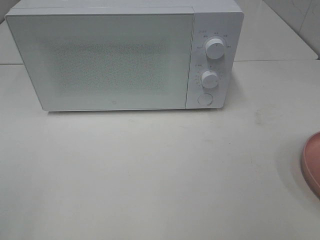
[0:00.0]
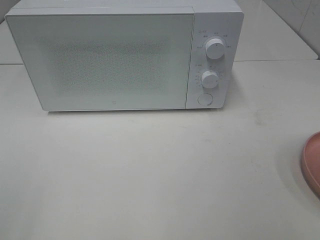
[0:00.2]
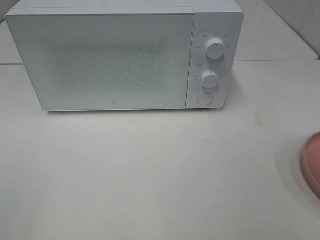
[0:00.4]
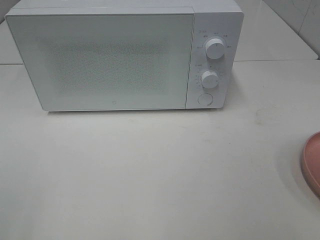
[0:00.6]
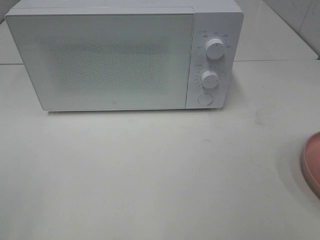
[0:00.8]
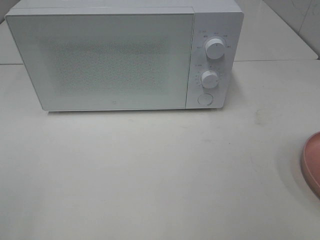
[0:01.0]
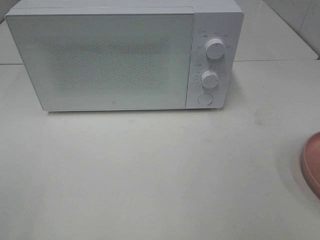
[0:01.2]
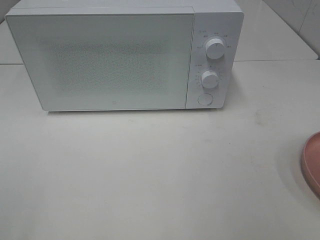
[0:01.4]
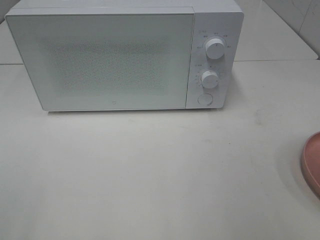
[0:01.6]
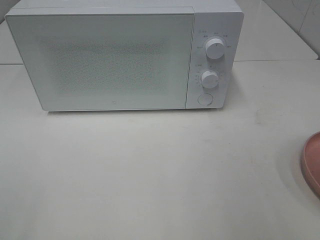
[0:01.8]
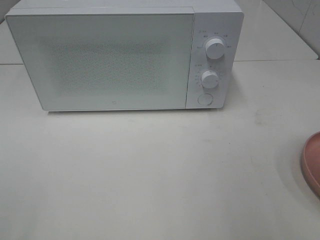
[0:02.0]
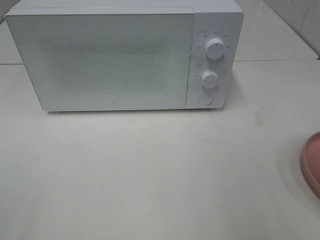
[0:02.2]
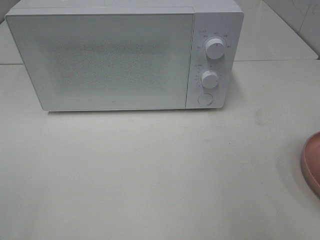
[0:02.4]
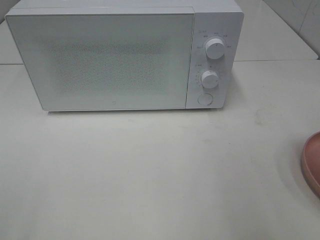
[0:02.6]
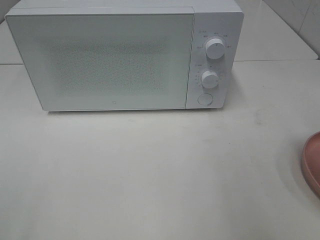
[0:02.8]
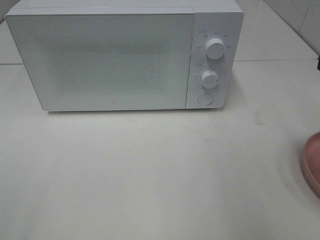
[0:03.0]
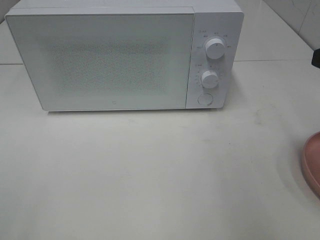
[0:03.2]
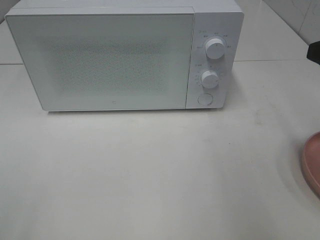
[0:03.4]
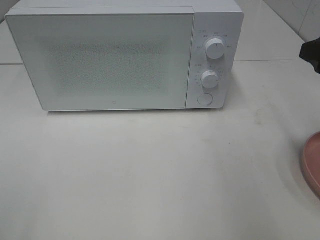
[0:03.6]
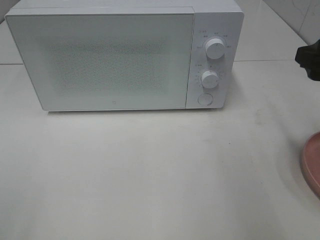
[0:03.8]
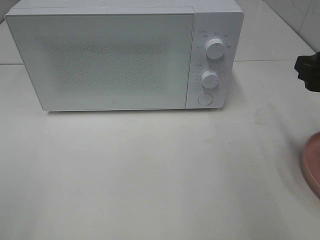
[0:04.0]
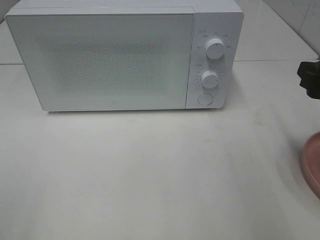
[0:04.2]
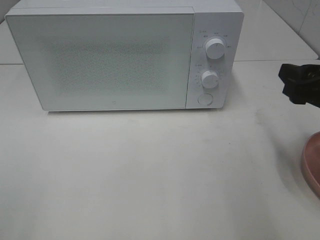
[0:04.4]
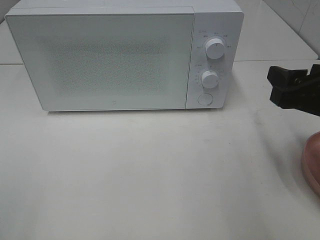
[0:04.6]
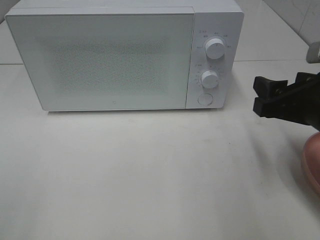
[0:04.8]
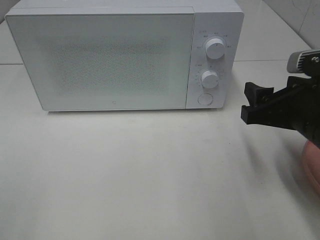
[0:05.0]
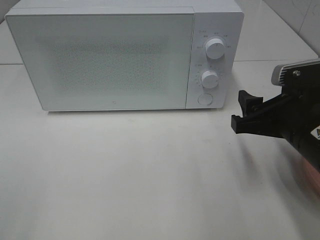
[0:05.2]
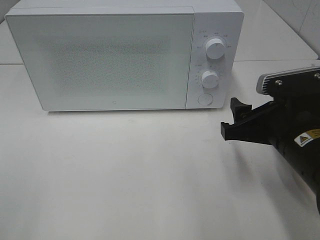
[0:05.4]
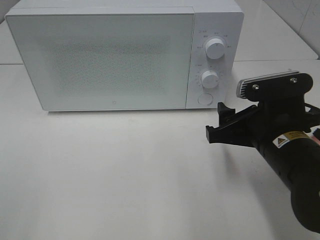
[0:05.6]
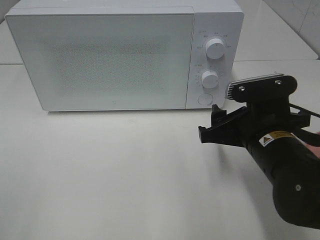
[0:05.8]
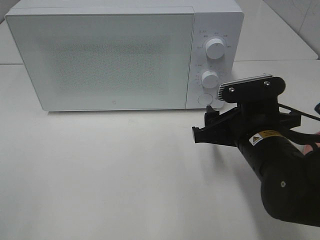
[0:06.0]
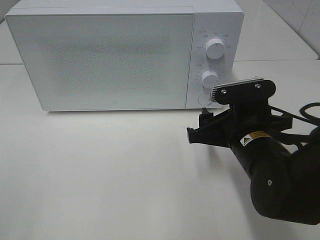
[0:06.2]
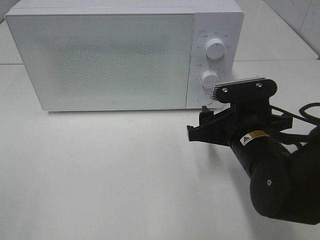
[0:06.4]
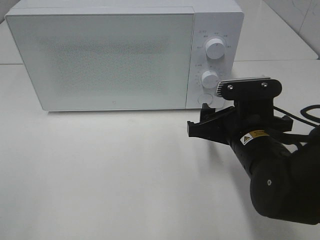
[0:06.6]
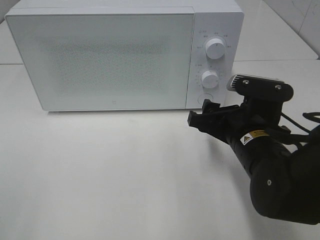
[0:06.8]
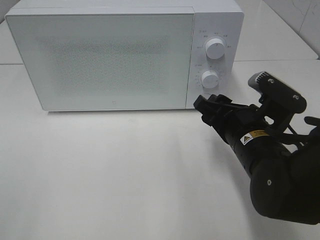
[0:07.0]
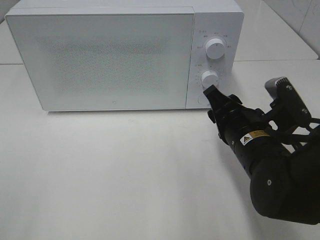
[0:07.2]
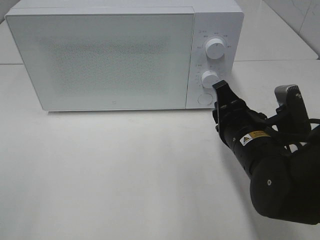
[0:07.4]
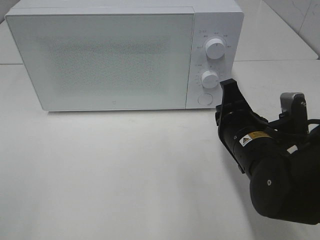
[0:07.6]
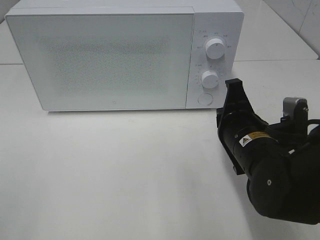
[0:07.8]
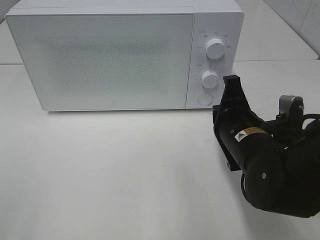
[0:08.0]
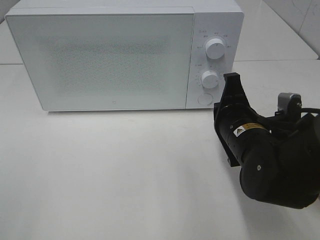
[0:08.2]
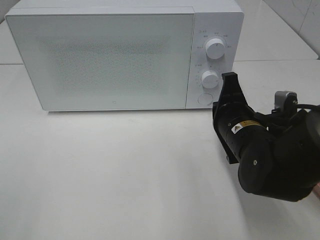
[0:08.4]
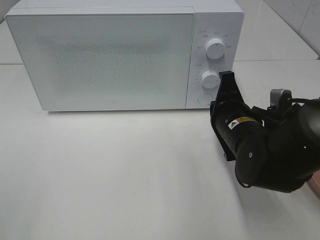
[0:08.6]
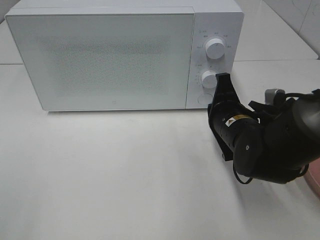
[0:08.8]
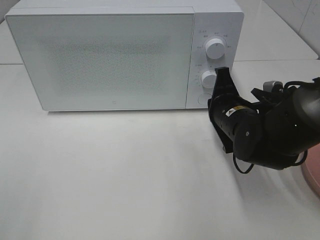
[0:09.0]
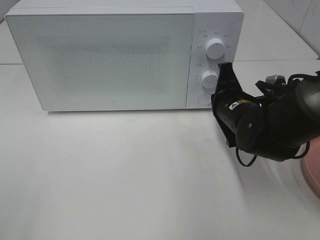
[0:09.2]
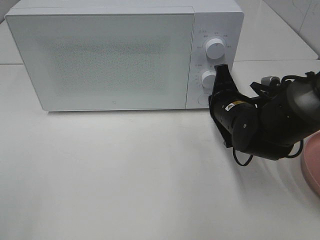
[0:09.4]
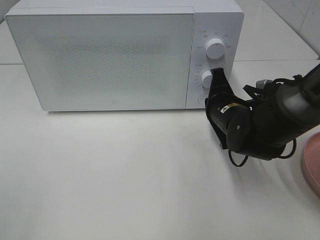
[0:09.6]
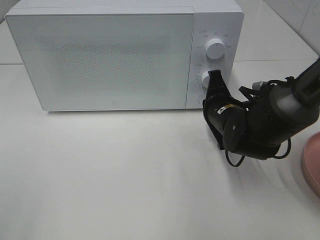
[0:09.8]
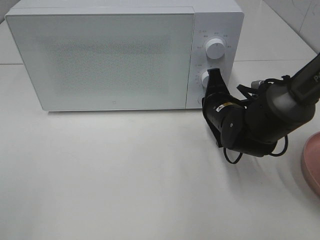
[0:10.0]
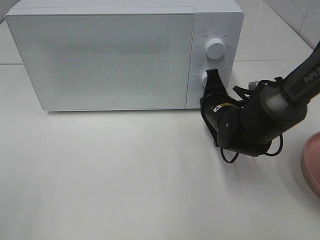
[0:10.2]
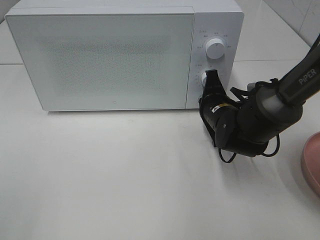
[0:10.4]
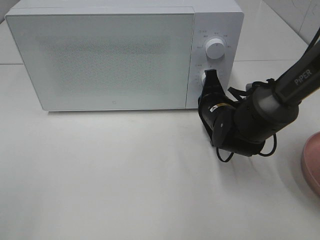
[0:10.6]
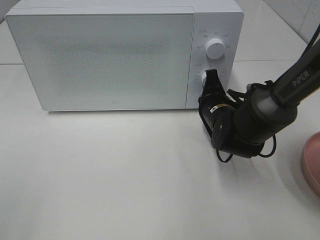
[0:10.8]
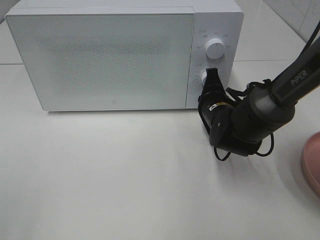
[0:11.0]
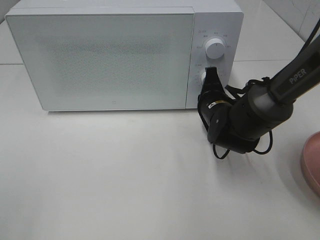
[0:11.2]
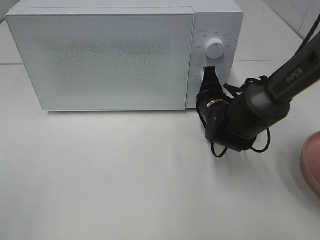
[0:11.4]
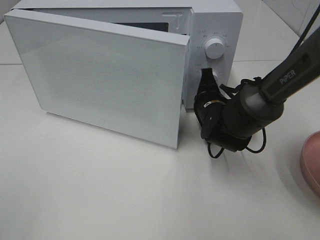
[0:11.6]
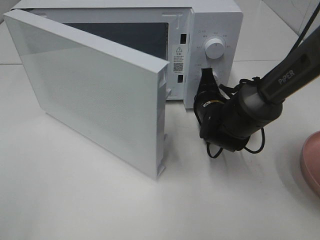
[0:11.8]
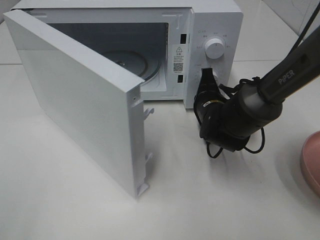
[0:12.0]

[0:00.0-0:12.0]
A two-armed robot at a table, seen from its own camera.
Task of the whole recording: Heat the burger.
0:03.0 to 0:04.4: The right gripper moves downward, roughly 5 cm.
0:04.4 to 0:06.0: The right gripper is displaced to the left and downward by about 15 cm.
0:06.0 to 0:07.6: The right gripper closes up.
0:07.6 to 0:09.0: The right gripper moves forward, roughly 5 cm.
0:09.0 to 0:10.4: The right gripper changes place by some 5 cm.

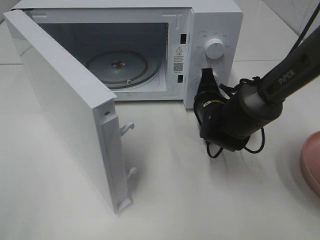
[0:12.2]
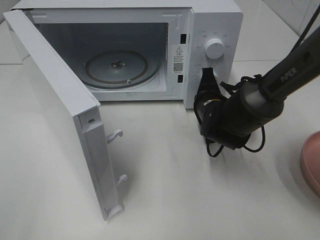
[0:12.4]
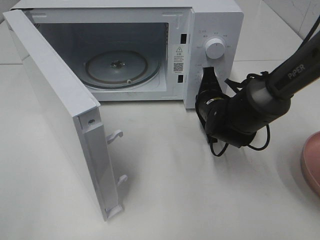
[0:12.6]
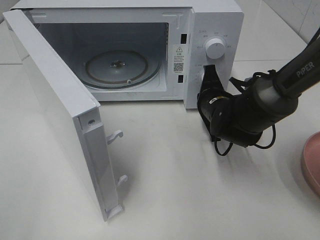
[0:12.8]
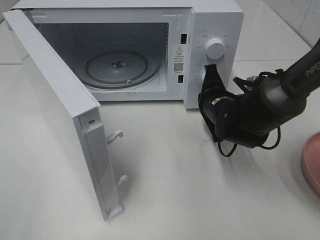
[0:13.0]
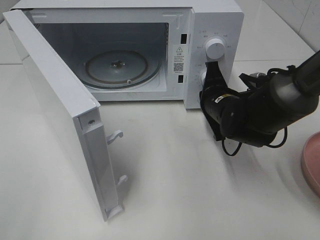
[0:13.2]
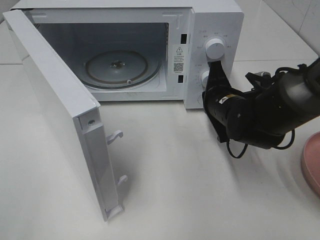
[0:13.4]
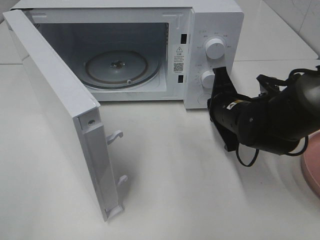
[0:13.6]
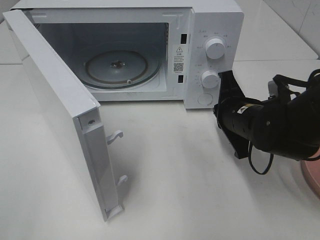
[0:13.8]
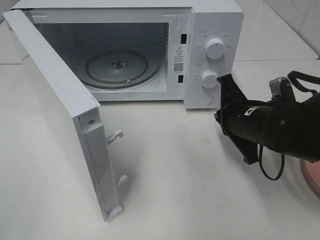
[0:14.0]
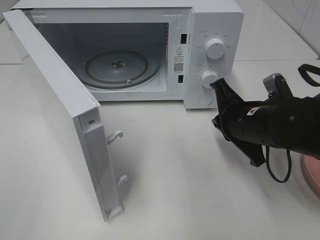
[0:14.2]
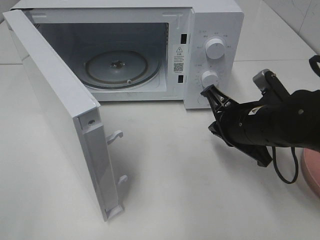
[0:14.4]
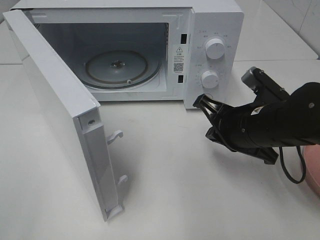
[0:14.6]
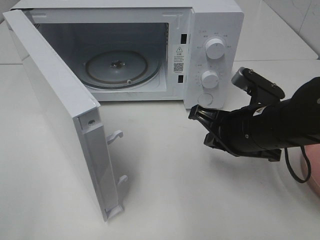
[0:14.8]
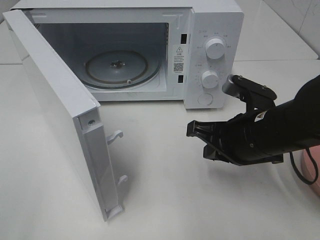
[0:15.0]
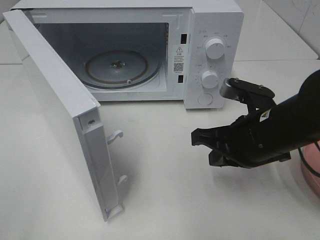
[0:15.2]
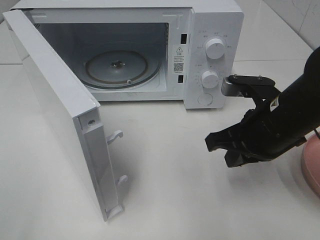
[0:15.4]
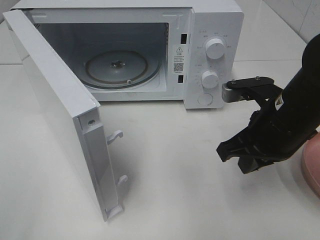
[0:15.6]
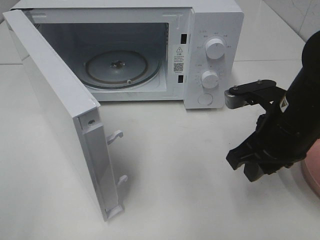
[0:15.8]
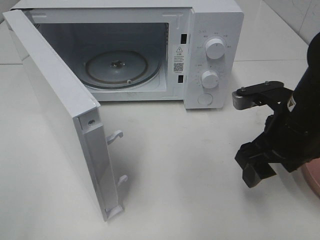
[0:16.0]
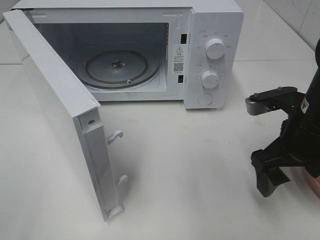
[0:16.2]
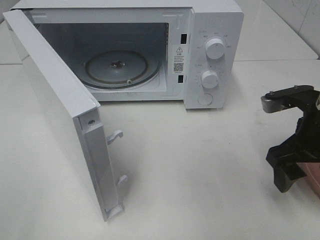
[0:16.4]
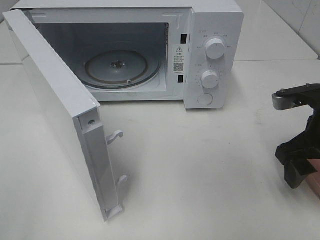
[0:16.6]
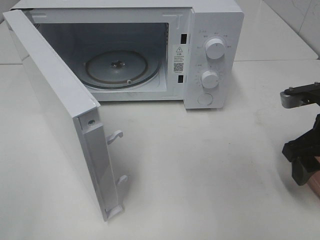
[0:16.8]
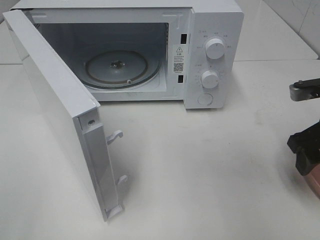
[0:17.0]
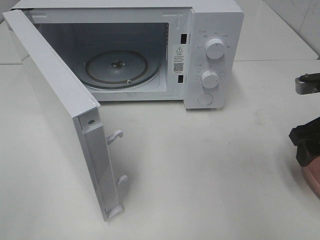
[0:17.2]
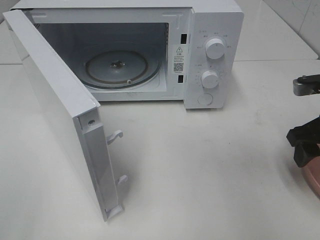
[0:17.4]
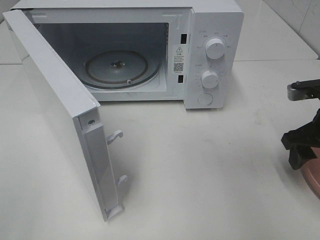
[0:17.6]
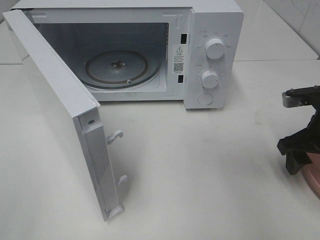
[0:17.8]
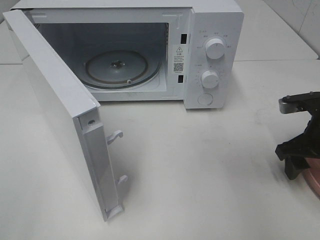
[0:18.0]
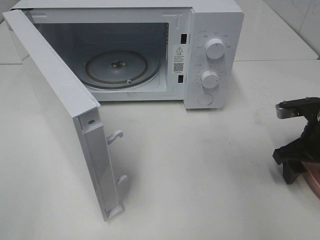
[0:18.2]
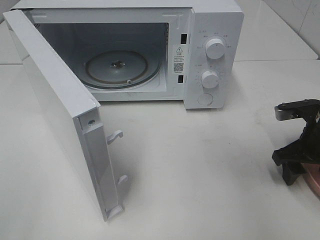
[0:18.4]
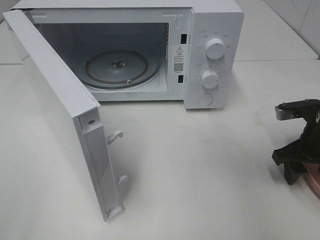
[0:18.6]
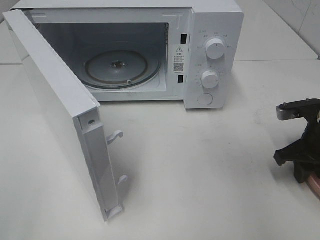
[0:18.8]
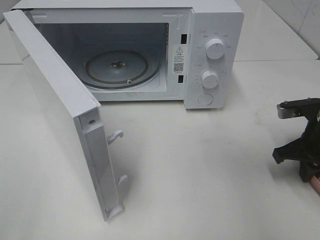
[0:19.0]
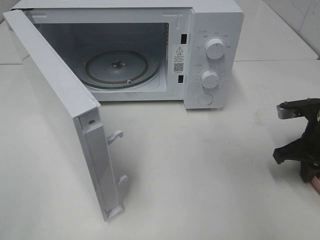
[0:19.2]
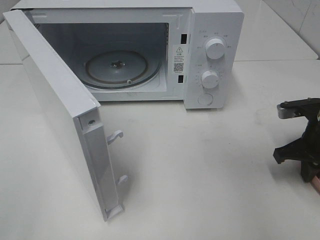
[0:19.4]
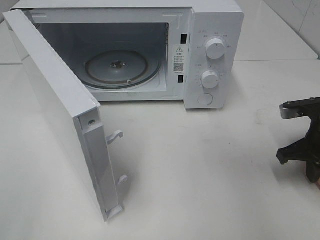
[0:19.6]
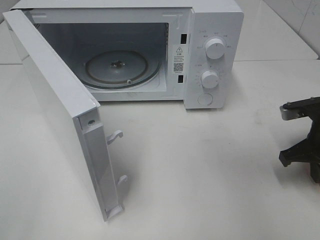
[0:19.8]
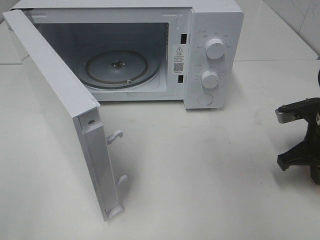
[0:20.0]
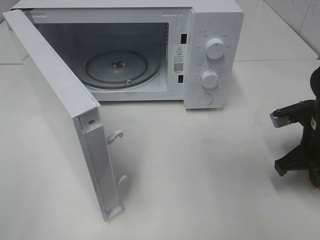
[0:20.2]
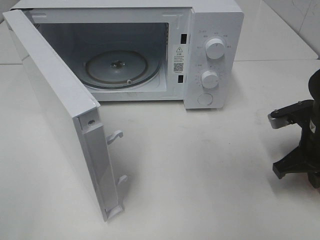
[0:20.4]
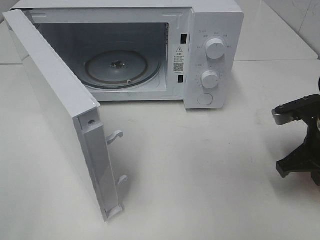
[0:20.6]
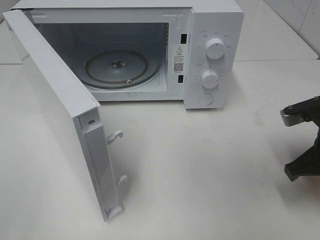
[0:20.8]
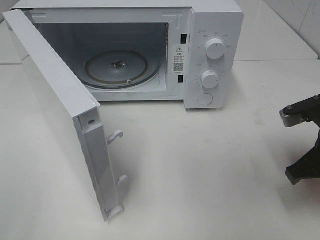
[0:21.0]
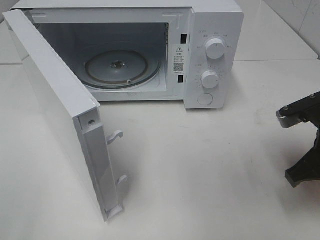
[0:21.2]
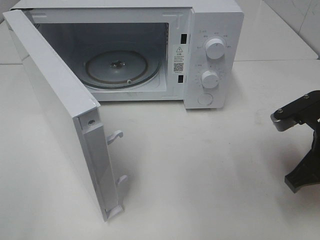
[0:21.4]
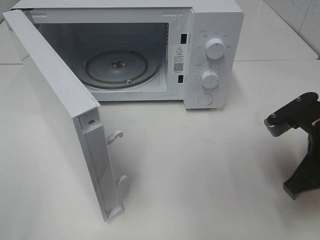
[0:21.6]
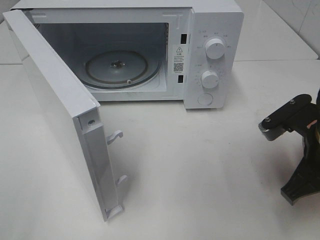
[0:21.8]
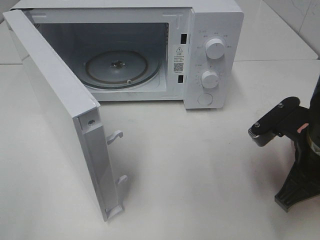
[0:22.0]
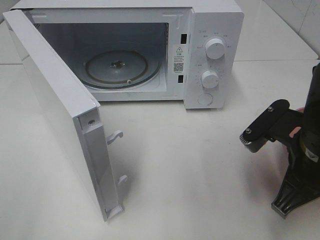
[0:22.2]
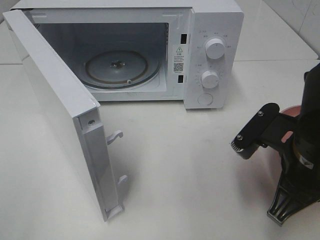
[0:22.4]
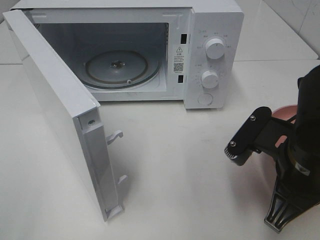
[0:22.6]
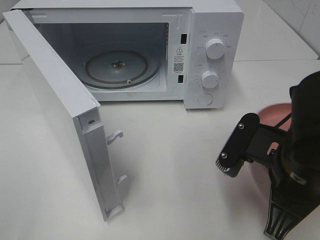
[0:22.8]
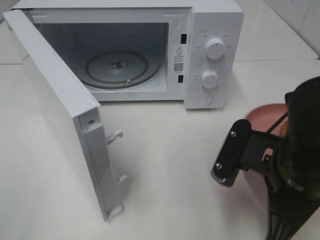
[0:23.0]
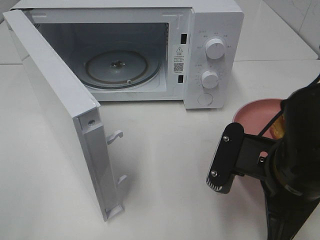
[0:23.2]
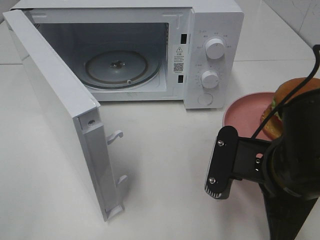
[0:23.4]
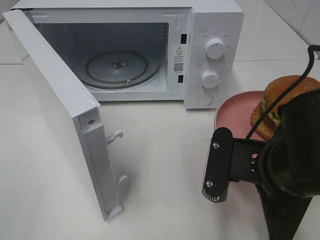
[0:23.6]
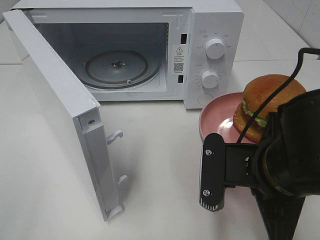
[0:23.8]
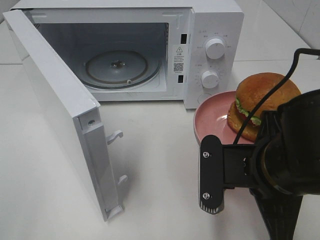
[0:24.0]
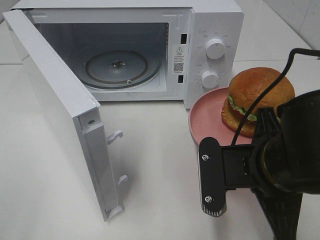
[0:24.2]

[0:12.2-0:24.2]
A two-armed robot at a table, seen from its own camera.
Task of the whole recording: Heat the burger.
Step, 0:13.4 to 0:19.6: Right hand: grab the plate with the hamburger.
0:12.2 to 0:13.8: The right gripper shifts about 5 cm backward.
0:13.8 to 0:15.2: The right gripper heads backward, covering approximately 5 cm.
0:15.2 to 0:16.6: The right gripper heads to the right, covering some 10 cm, and opens its fingers.
0:16.6 to 0:18.2: The right gripper is displaced downward by some 5 cm.
0:18.2 to 0:19.8: The right gripper closes up.
0:19.8 to 0:21.2: The right gripper is displaced backward by some 5 cm.
0:21.2 to 0:22.6: The right gripper travels to the left by roughly 10 cm.
